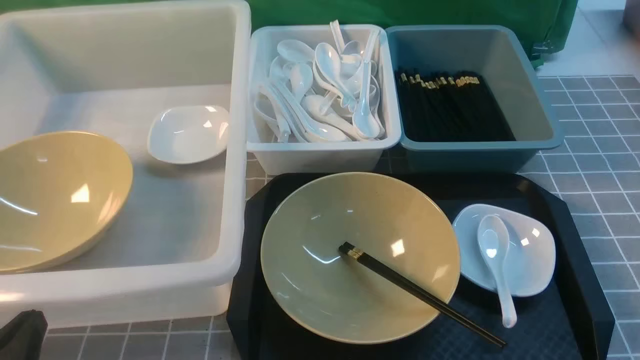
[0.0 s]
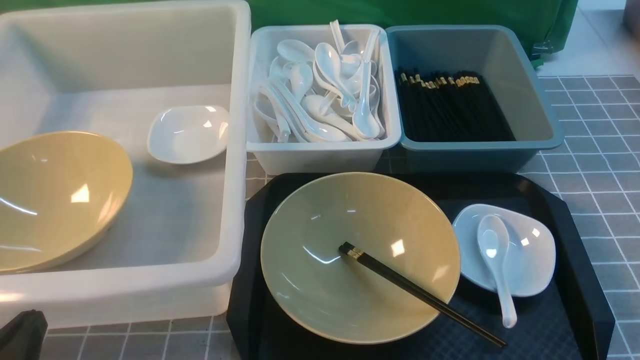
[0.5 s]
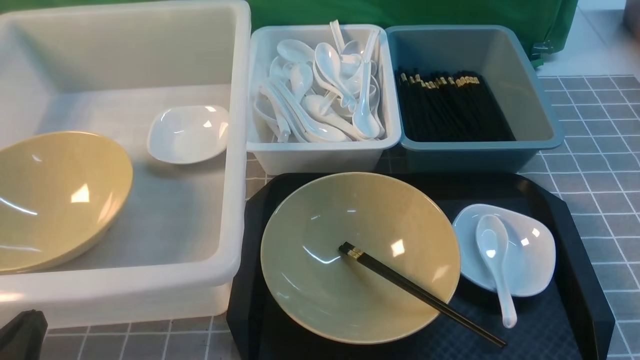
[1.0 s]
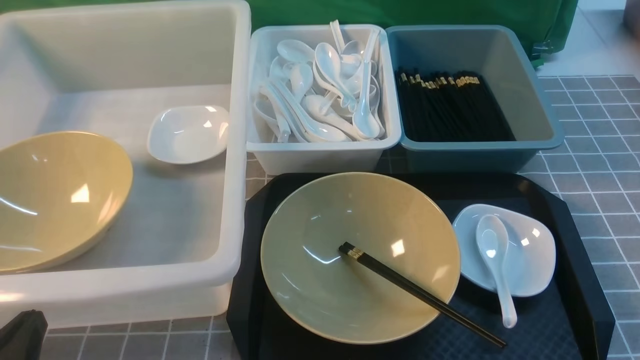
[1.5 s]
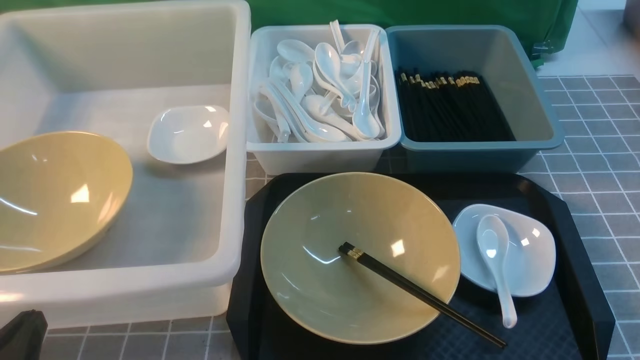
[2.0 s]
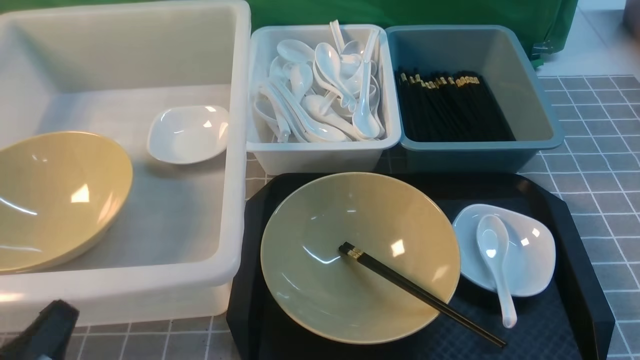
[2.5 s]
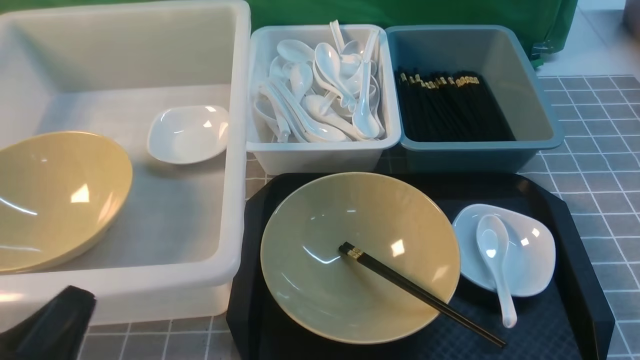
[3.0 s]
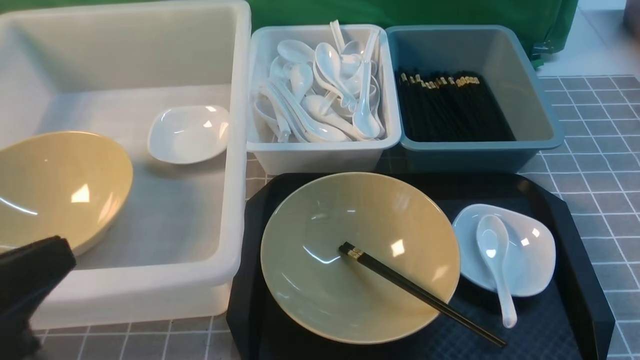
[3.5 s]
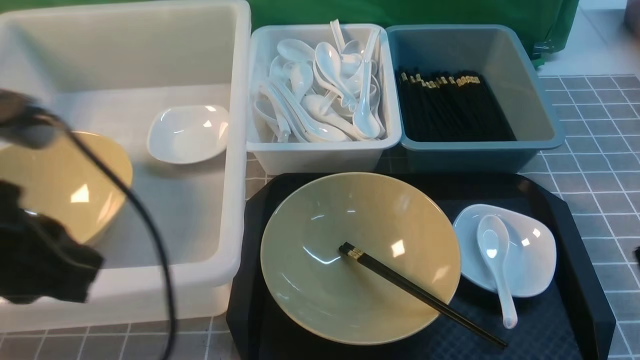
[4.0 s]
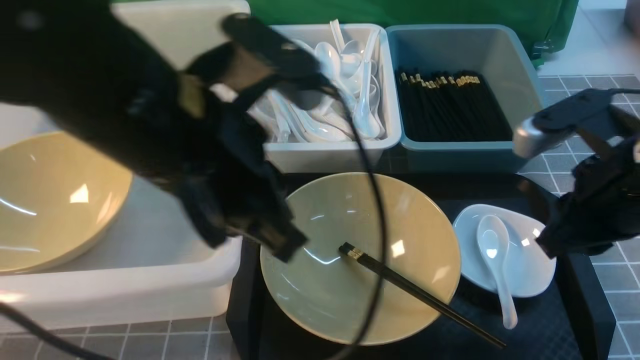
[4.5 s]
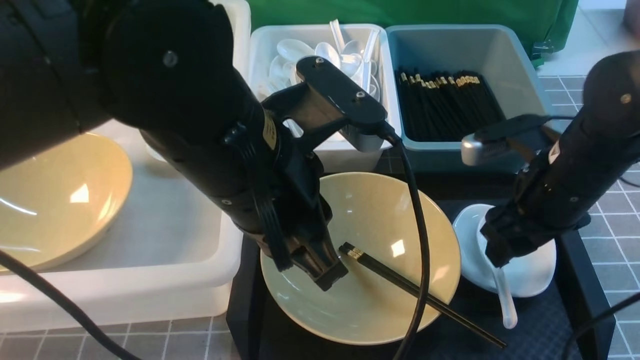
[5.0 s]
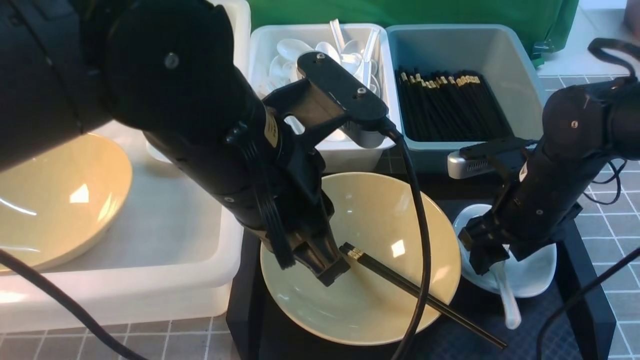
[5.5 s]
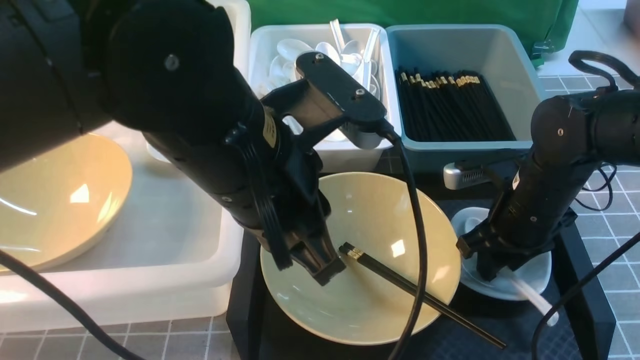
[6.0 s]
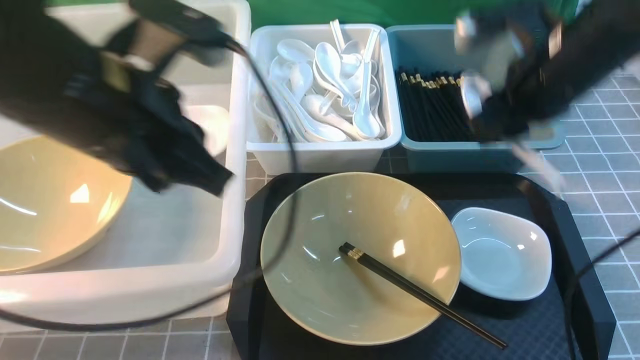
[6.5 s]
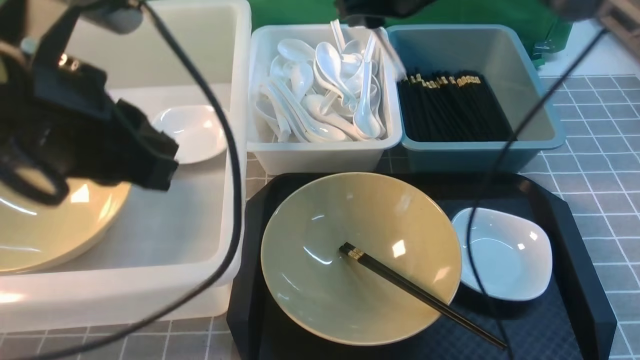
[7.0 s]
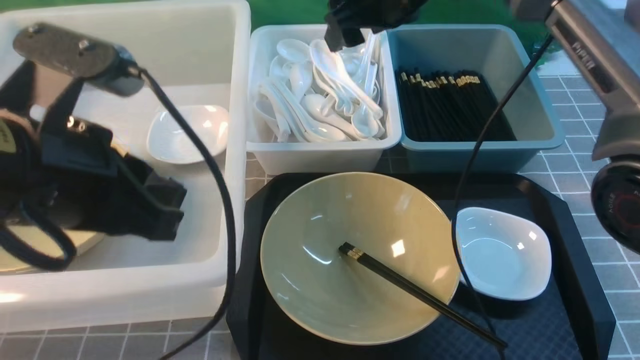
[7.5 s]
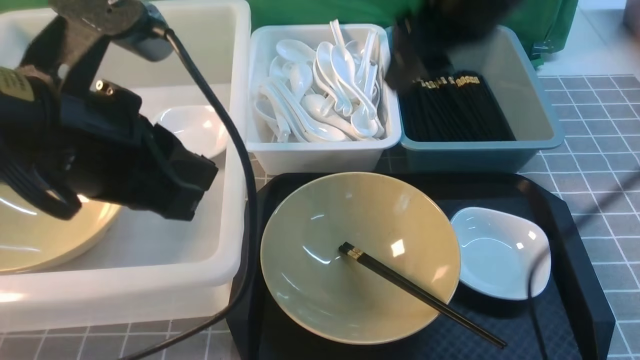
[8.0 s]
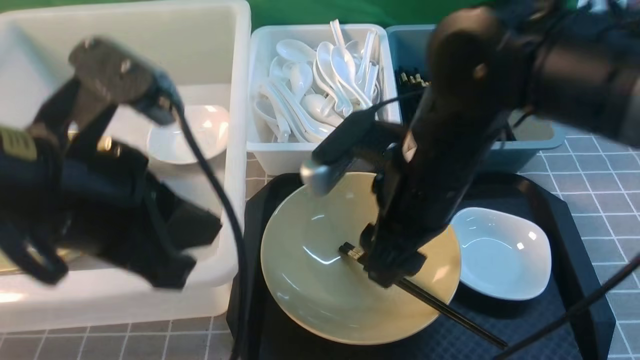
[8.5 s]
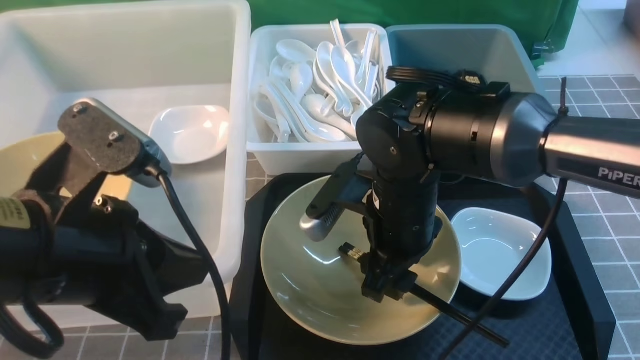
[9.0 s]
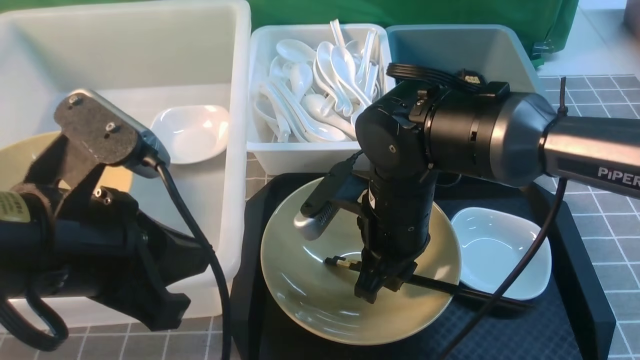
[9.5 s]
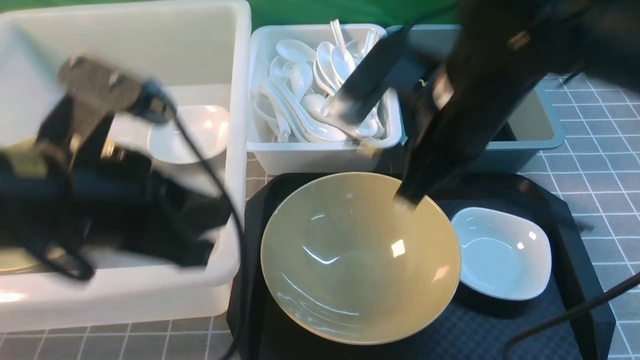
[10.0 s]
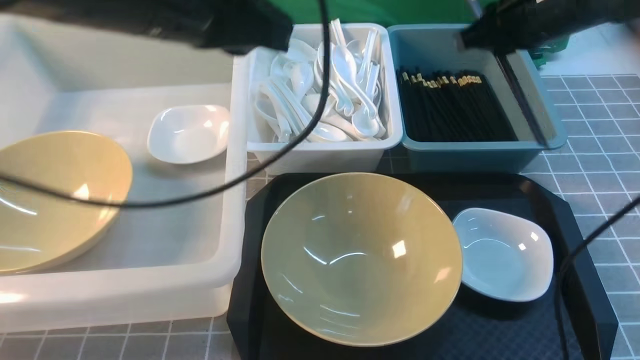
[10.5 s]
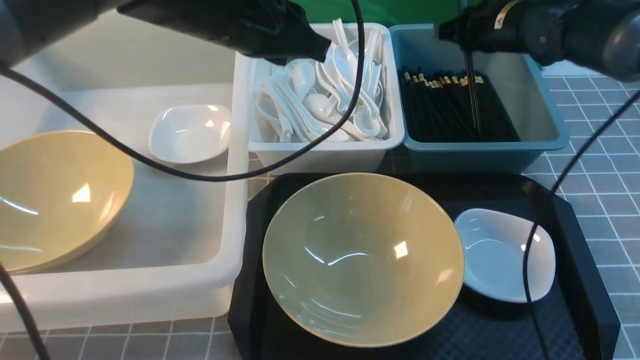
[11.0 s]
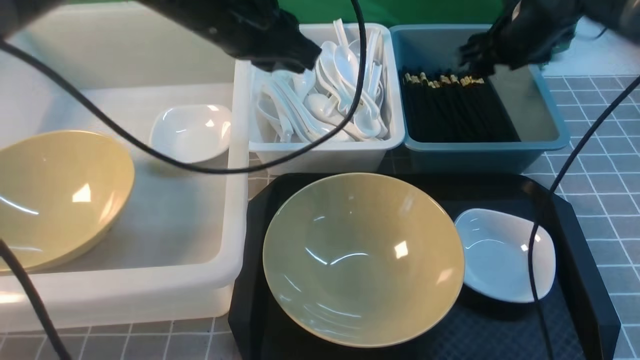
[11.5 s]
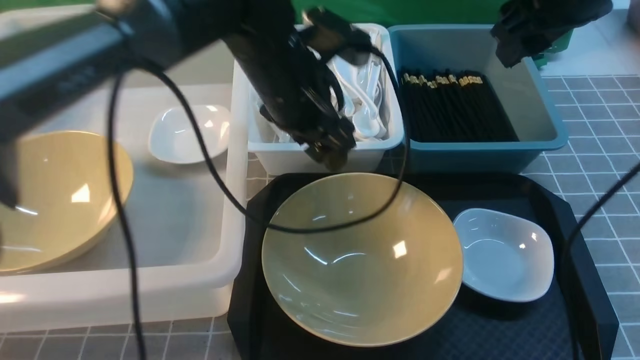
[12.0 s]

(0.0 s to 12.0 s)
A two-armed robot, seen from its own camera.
Task of the whole recording: on grey table put chopsticks spoon bowls plates into blue grey white boxes.
Step, 0.0 s - 6.0 s: use the right arm to grab the soup spoon in the middle.
Step, 6.5 s - 7.5 s: use the right arm to put the soup spoon into the small storage box in the middle.
Step, 8.0 s - 9.5 s: use the right arm to grab the chopsticks.
Step, 10.0 s - 11.0 s: use the right arm to put the chopsticks into the small storage box on the right.
2.0 s - 4.0 s: The left gripper heads upward and forward, covering some 20 cm.
4.0 s - 6.0 s: The left gripper travels to the right and forward by roughly 20 cm. Meanwhile the right gripper heads forward, downward and to the left, covering roughly 25 cm, and opens its fingers.
6.0 s - 8.0 s: The right gripper shifts approximately 25 cm upward and to the left. The left gripper heads to the left, covering some 10 cm.
8.0 s - 10.0 s: The right gripper moves downward and backward, roughly 10 cm, and closes.
10.0 s - 12.0 s: The left gripper is displaced forward and to the right by about 20 cm, and opens; the right gripper heads to the right, forward and upward, covering some 15 cm, and opens up.

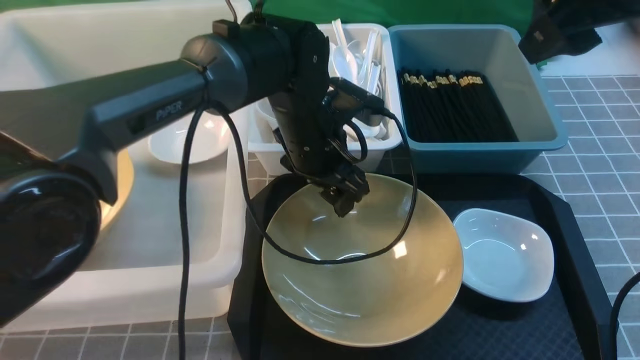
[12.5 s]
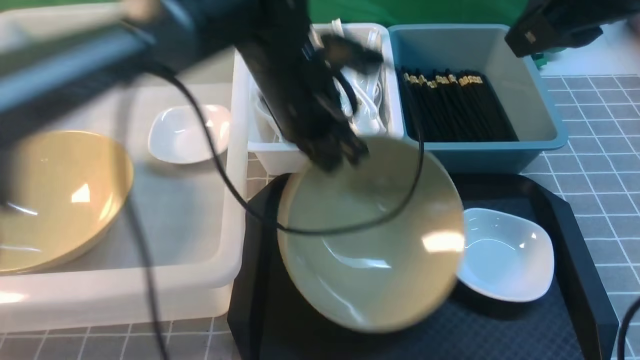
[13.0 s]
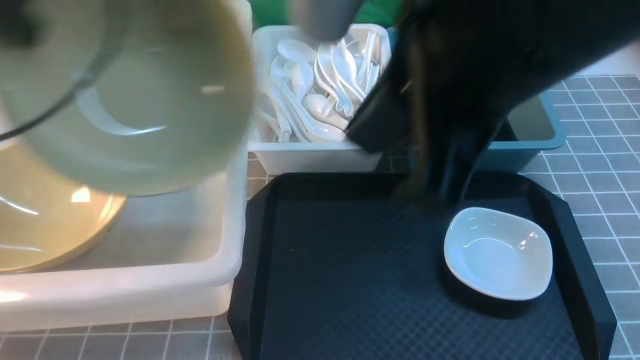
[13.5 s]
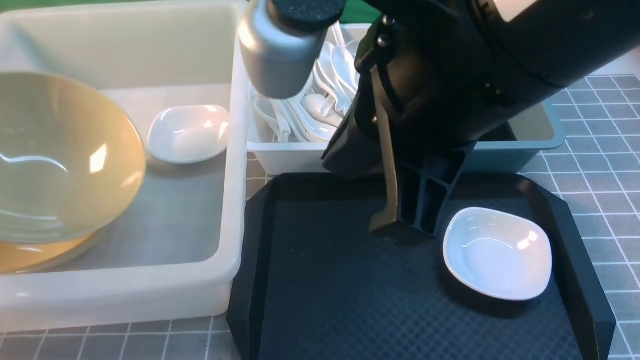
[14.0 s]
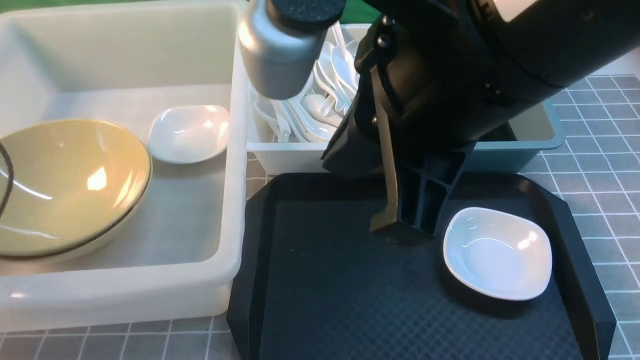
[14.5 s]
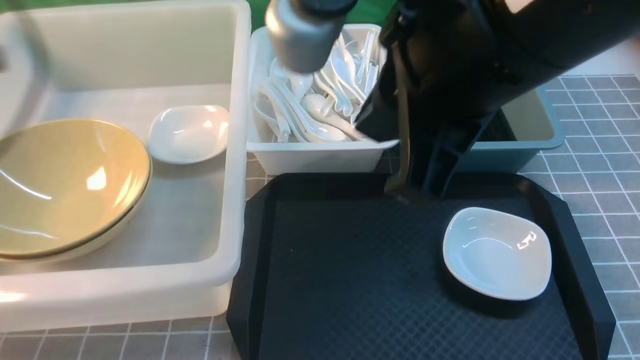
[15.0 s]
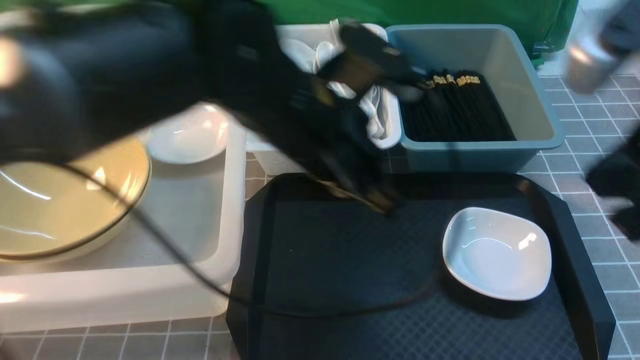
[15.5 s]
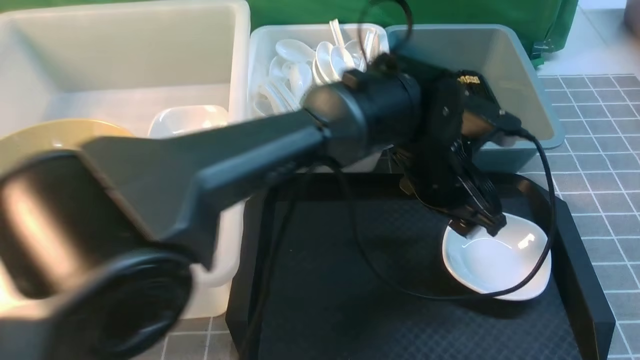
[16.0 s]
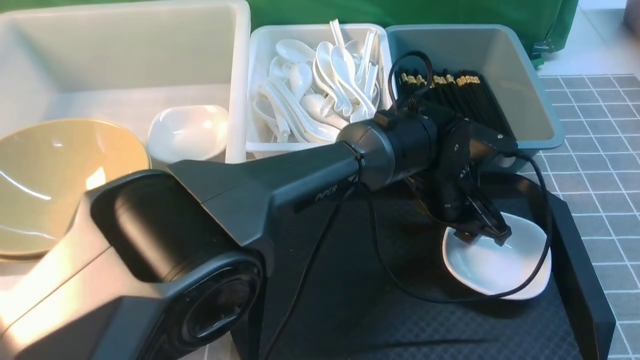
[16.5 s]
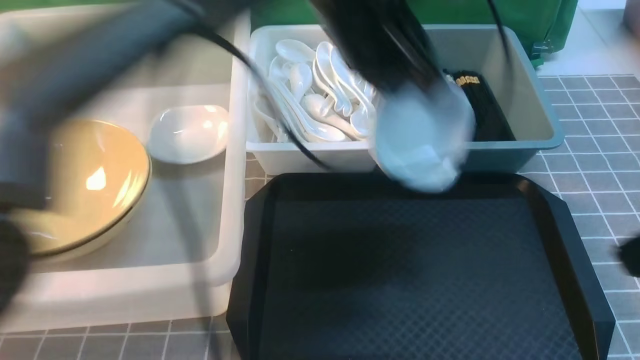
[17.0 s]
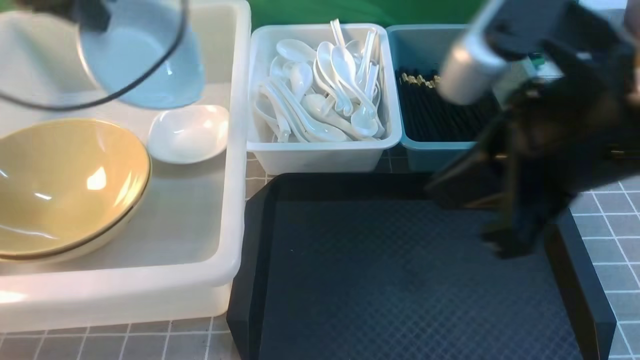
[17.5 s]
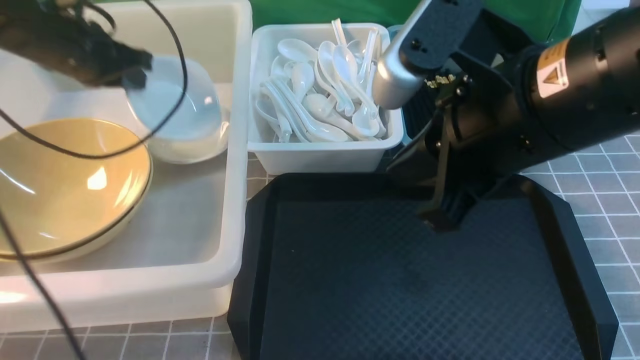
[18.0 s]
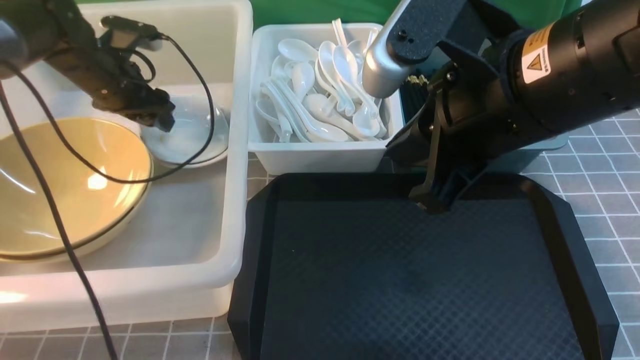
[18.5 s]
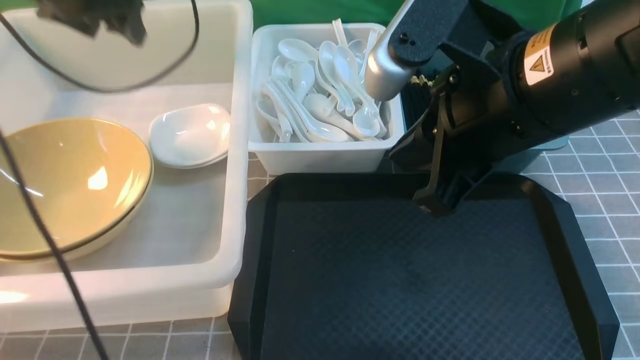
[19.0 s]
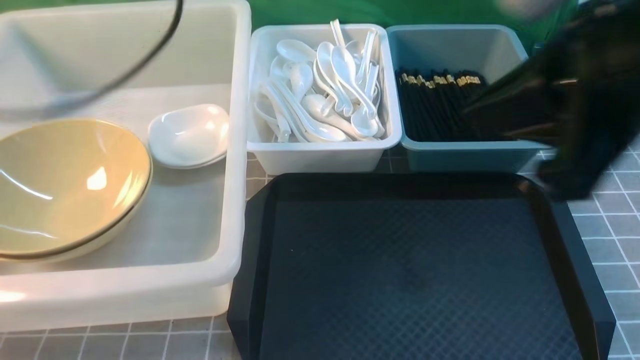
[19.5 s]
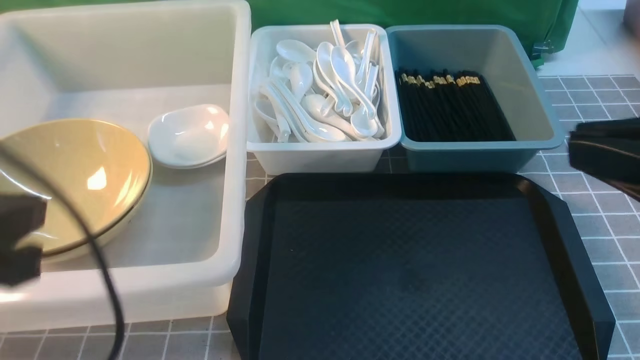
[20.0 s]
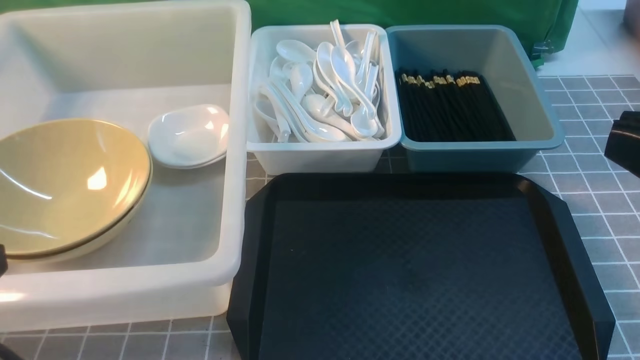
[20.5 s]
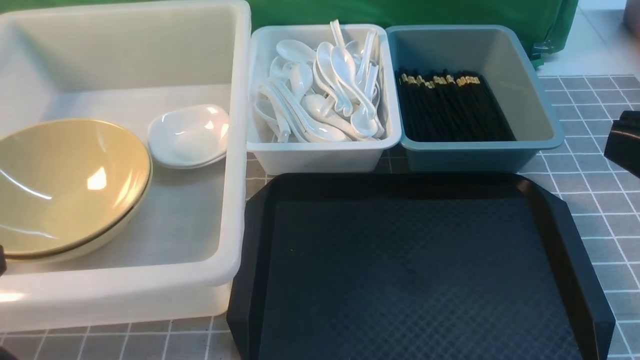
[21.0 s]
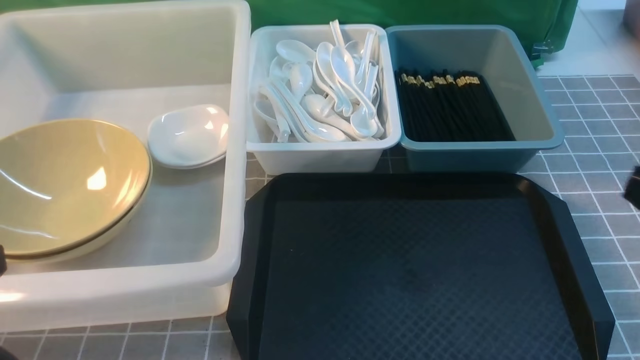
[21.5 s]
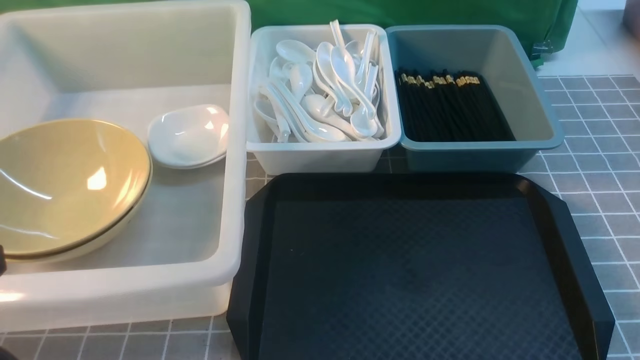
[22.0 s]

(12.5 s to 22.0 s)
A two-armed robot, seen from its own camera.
Task of the whole recording: on grey table put chopsticks spoon bowls plates into blue grey white boxes.
Step, 13.5 s - 14.5 s: use the left arm to put the noodle bowl into the large storage box on the left.
Step, 15.0 s - 16.5 s: use the left arm to grab the plate.
Step, 17.0 s - 18.5 s: use the left arm to put the plate into the large storage box on the left.
12.5 s - 14.5 s: The right gripper moves to the left and backward, some 20 cm, and closes its fingers. Meanwhile the left gripper goes approximately 40 cm to the left, and closes and opens again.
14.5 s - 16.5 s: The left gripper goes some 50 cm to the right, and closes, then opens again. The right gripper is displaced to the right and backward by approximately 25 cm.
16.5 s - 18.0 s: The left gripper moves to the left, roughly 40 cm, and closes. Meanwhile the right gripper moves to the left and forward, approximately 20 cm.
18.0 s - 20.0 s: The left gripper is displaced backward by approximately 30 cm, and opens, then closes again. The right gripper goes some 15 cm backward and to the right.
20.0 s - 22.0 s: The right gripper travels downward and to the right by some 20 cm; the left gripper moves backward, approximately 10 cm.
